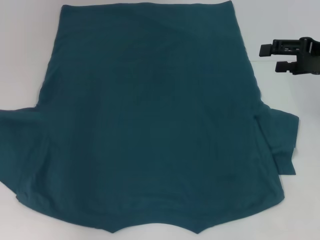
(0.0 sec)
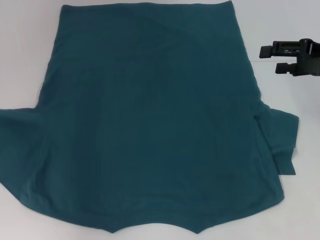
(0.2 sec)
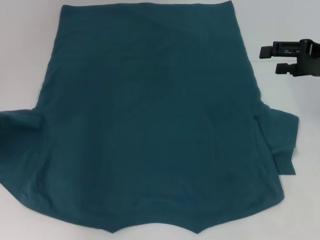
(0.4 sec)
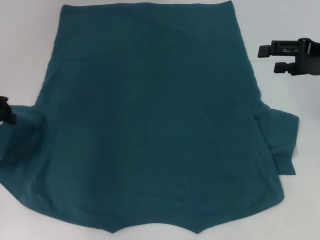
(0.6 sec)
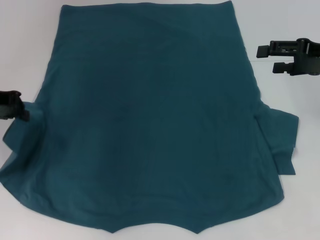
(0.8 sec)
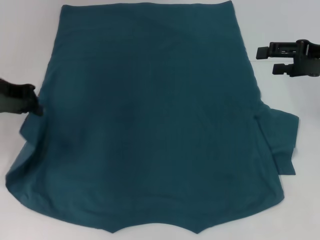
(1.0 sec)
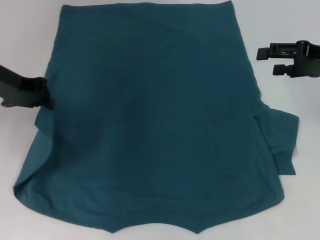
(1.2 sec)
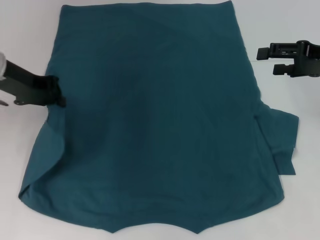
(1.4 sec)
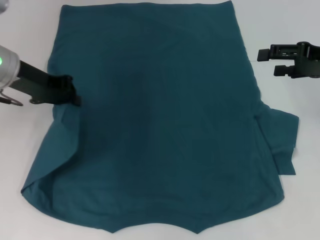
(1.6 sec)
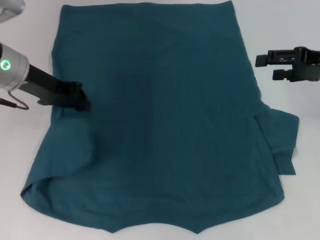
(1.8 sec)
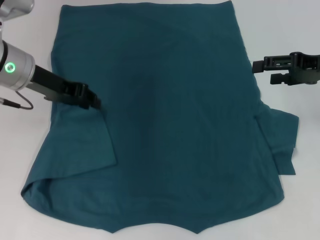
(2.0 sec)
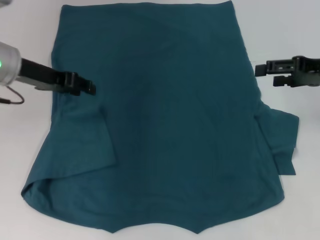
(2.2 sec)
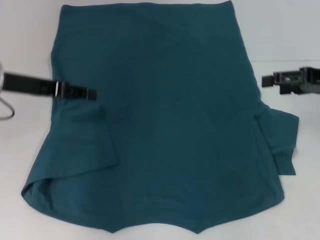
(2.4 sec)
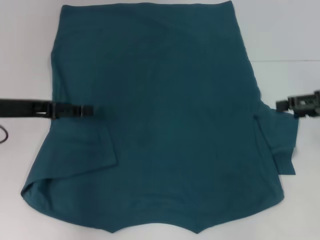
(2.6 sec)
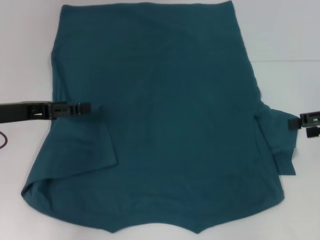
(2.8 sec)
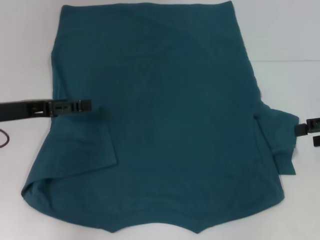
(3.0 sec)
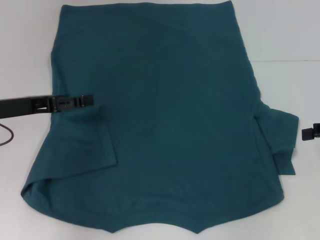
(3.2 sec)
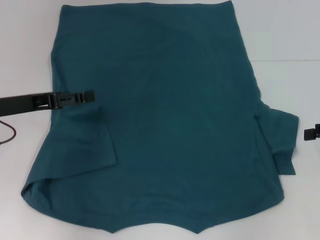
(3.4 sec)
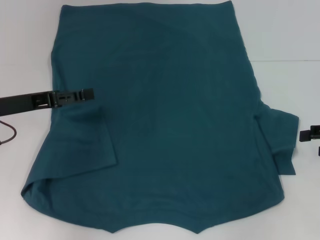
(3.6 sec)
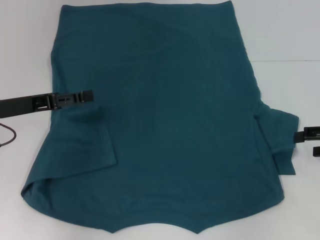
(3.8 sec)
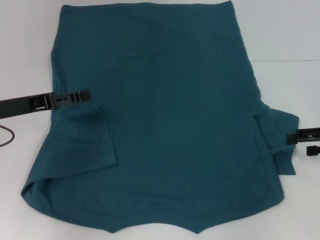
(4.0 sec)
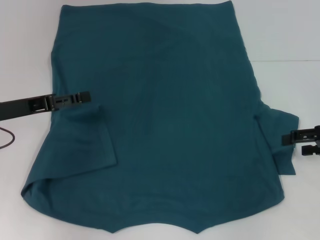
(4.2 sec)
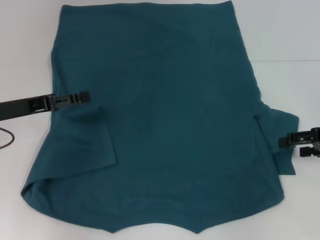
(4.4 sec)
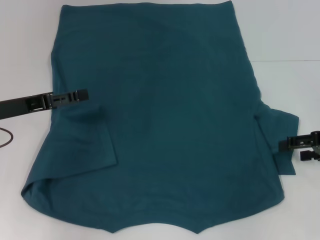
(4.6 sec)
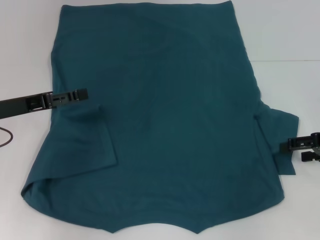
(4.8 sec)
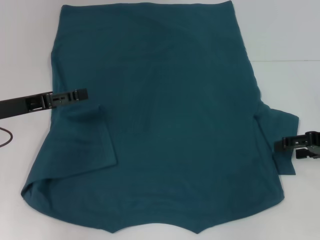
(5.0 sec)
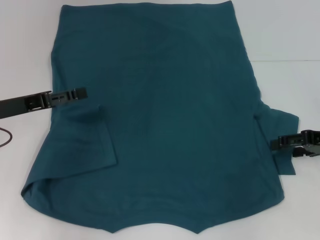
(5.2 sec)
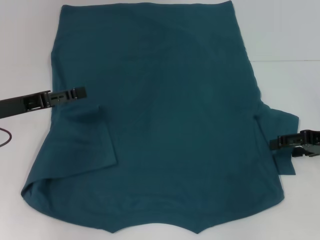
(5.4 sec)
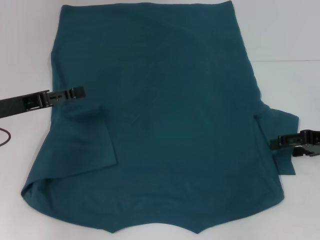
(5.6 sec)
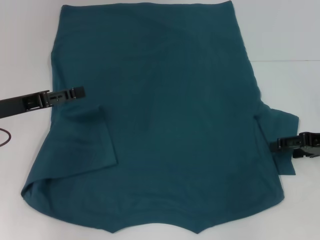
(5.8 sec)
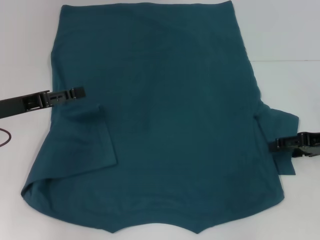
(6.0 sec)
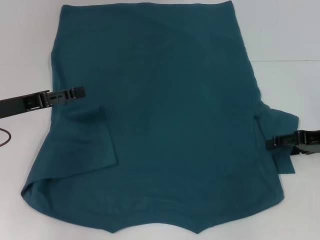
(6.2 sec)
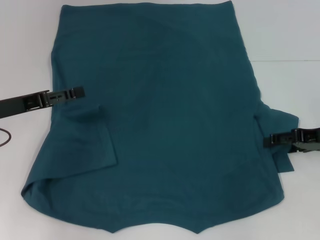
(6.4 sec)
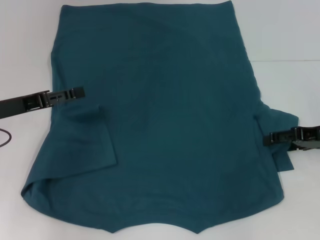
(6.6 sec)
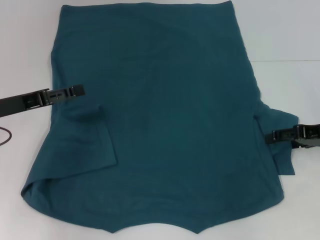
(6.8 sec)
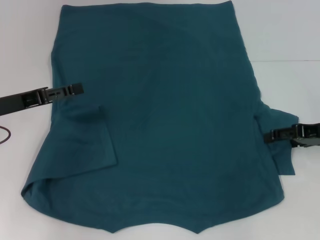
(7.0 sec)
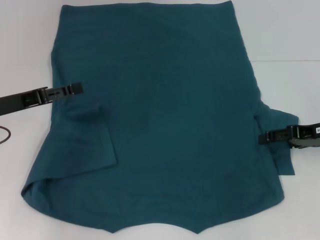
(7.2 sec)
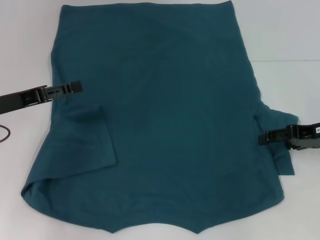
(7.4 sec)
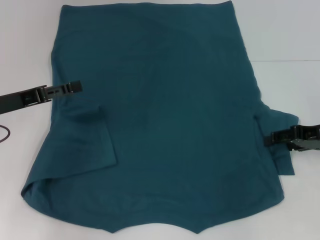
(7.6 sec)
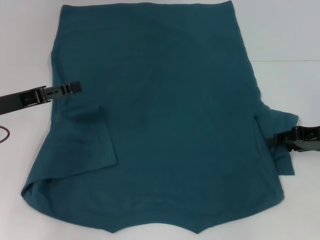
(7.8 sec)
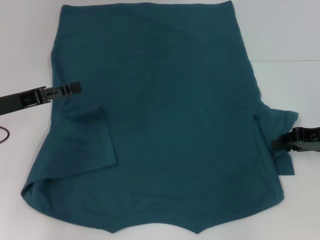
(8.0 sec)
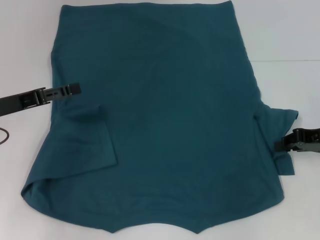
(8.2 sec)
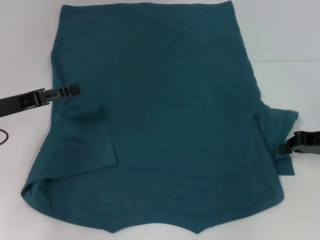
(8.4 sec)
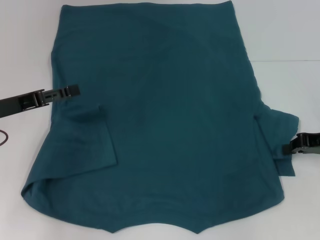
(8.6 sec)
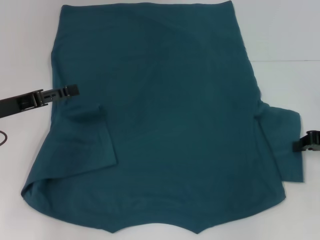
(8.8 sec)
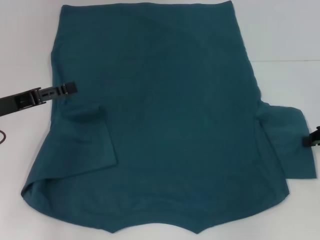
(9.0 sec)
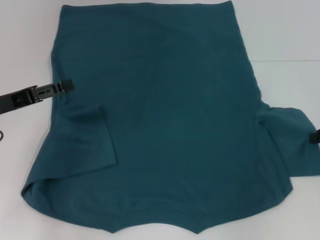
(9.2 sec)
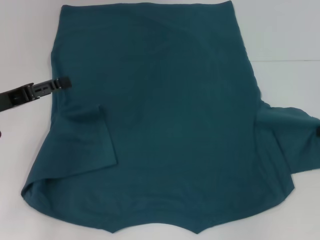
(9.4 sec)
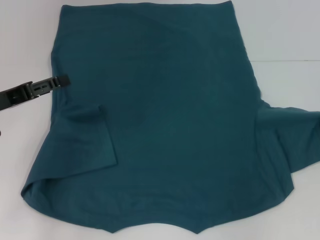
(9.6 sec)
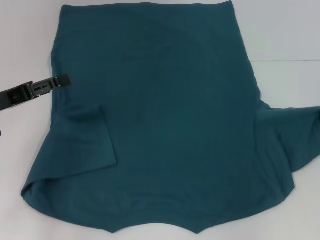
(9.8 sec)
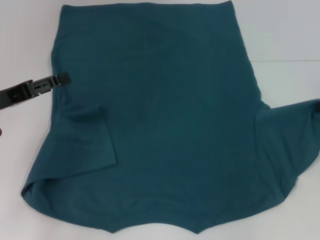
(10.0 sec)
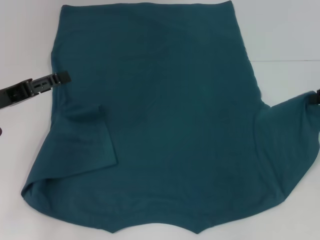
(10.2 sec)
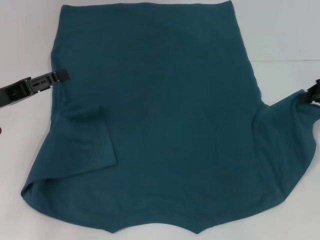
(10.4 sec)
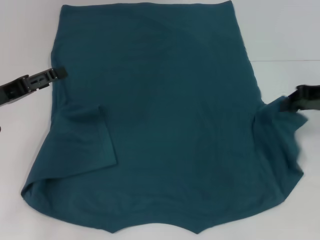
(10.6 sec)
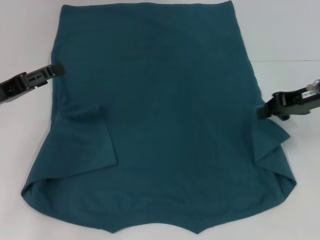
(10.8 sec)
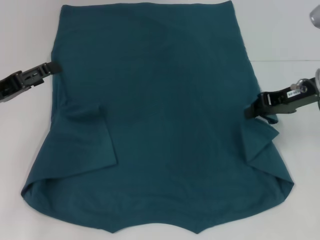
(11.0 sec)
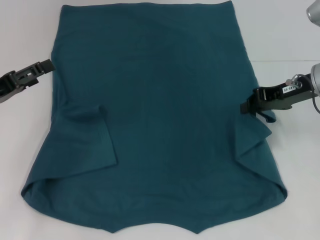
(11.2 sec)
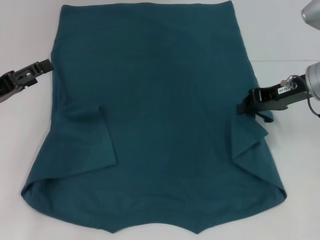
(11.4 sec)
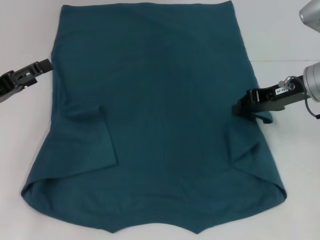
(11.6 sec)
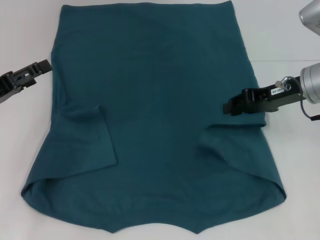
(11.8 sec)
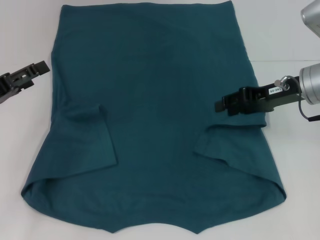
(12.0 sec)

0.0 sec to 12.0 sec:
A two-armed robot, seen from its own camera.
Step, 0.0 sec to 2.0 sec: Fold the bottom left sleeve with your left hand.
0.0 sec to 1.6 sec: The left gripper heads to the right and forward, covering roughly 15 cm.
1.6 sec to 3.0 sec: The left gripper heads backward, covering roughly 10 cm, and opens. The right gripper is displaced backward and to the right by some 10 cm.
3.0 sec to 4.4 sec: The grippers move only a little.
4.4 sec to 7.6 sec: The grippers stay close to where they were, moving slightly.
7.6 sec to 9.0 sec: The right gripper closes.
9.0 sec to 10.4 sec: The right gripper goes approximately 5 cm upward.
10.4 sec to 12.0 sec: The right gripper goes some 10 cm to the left.

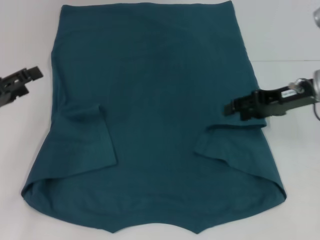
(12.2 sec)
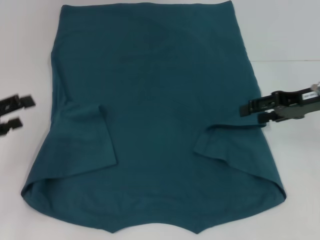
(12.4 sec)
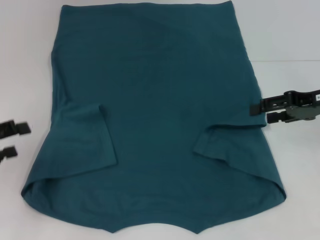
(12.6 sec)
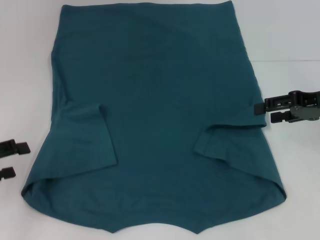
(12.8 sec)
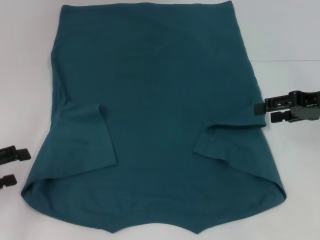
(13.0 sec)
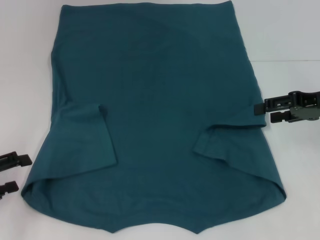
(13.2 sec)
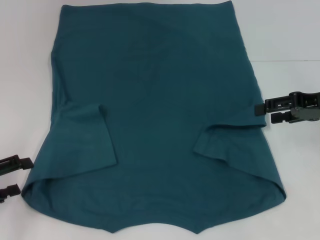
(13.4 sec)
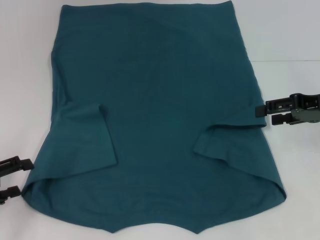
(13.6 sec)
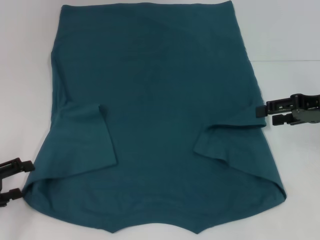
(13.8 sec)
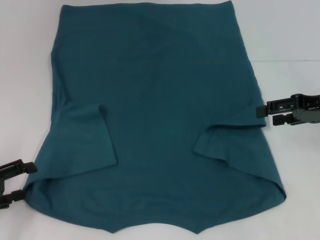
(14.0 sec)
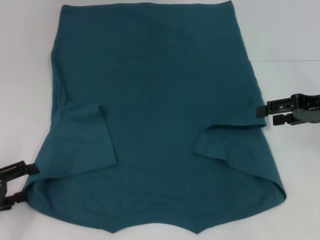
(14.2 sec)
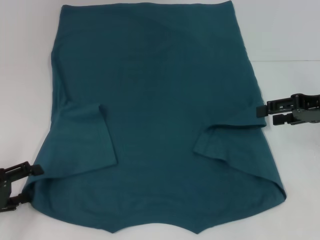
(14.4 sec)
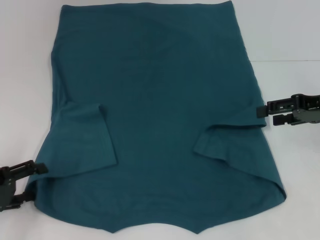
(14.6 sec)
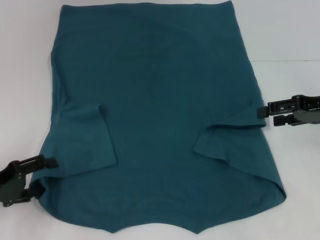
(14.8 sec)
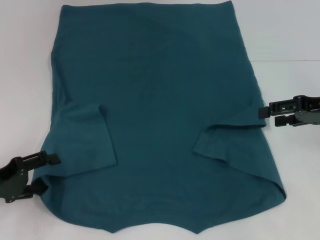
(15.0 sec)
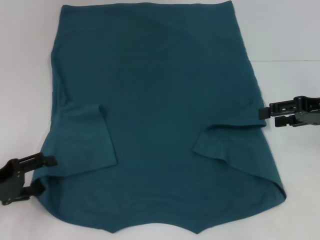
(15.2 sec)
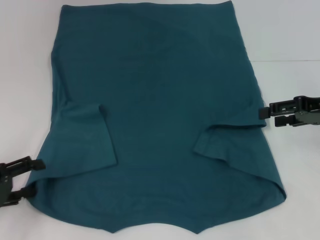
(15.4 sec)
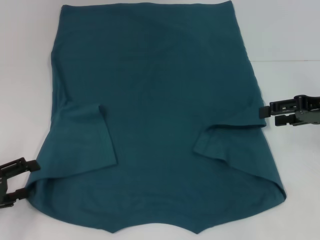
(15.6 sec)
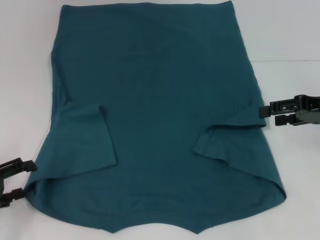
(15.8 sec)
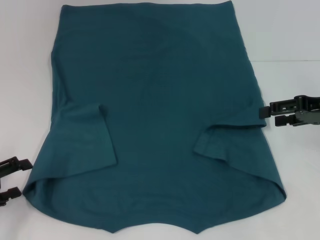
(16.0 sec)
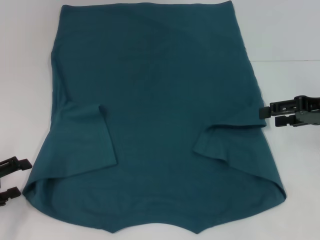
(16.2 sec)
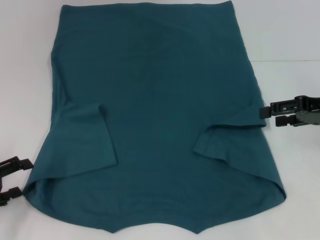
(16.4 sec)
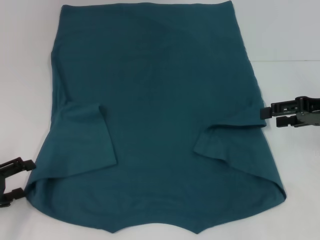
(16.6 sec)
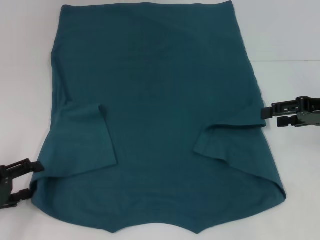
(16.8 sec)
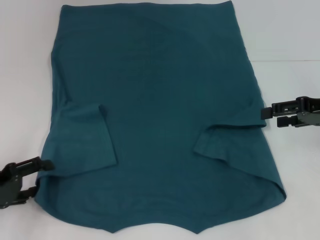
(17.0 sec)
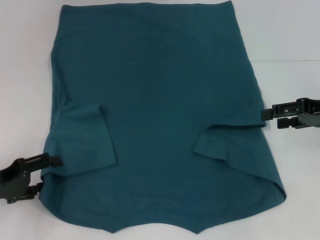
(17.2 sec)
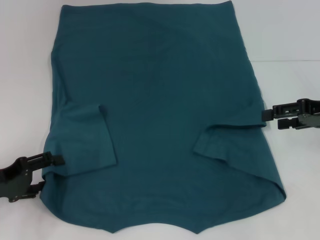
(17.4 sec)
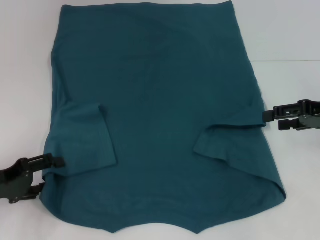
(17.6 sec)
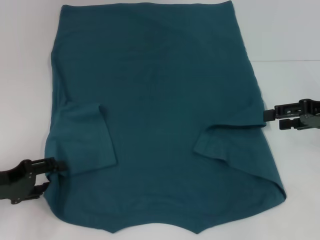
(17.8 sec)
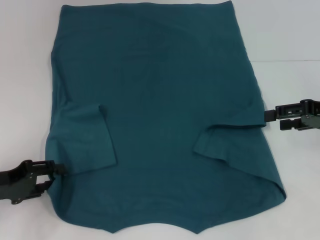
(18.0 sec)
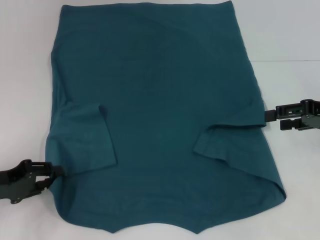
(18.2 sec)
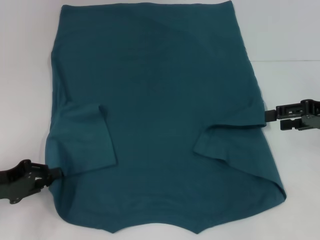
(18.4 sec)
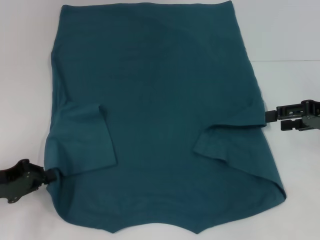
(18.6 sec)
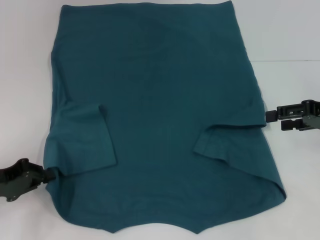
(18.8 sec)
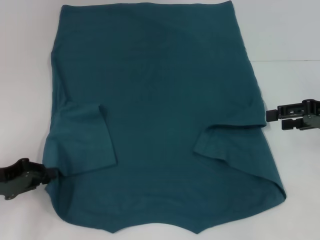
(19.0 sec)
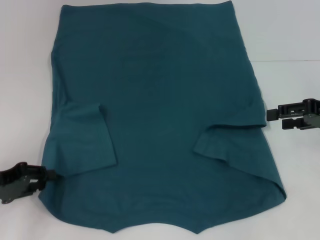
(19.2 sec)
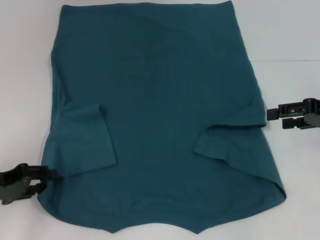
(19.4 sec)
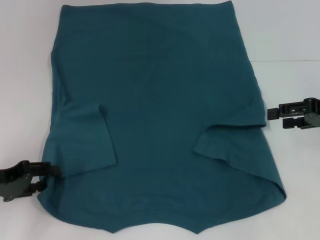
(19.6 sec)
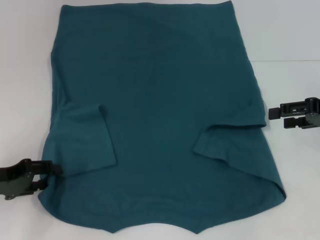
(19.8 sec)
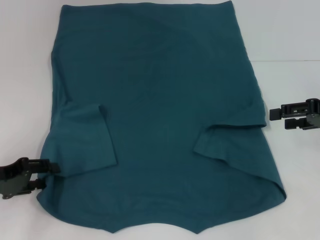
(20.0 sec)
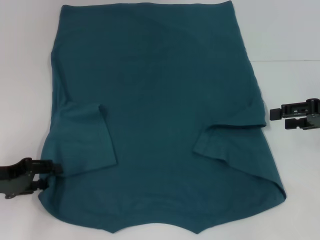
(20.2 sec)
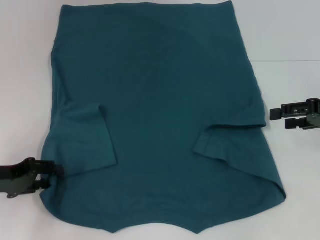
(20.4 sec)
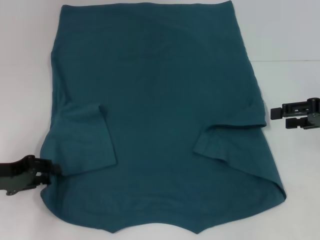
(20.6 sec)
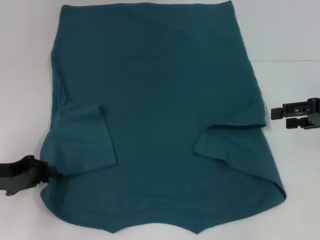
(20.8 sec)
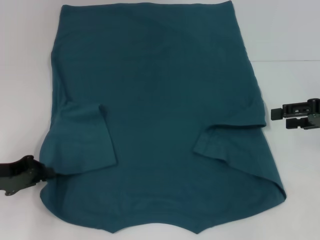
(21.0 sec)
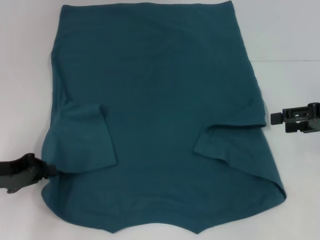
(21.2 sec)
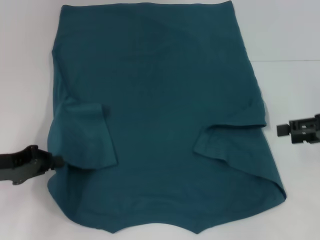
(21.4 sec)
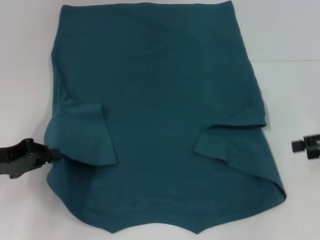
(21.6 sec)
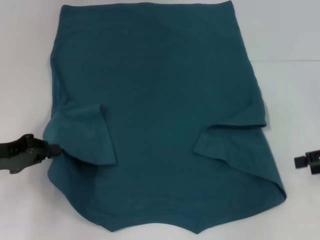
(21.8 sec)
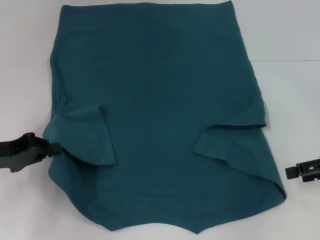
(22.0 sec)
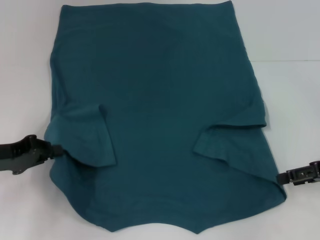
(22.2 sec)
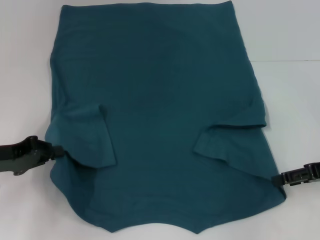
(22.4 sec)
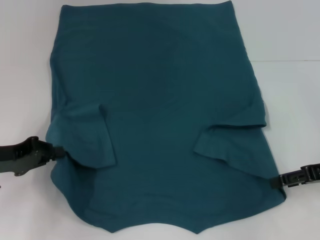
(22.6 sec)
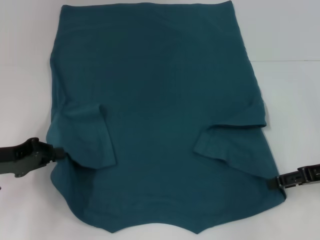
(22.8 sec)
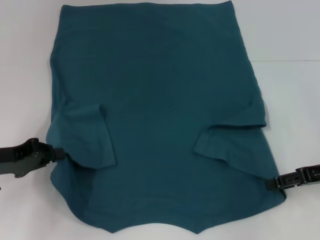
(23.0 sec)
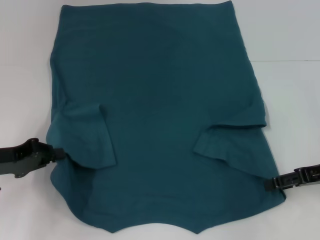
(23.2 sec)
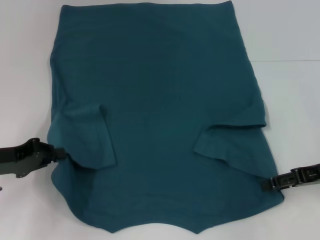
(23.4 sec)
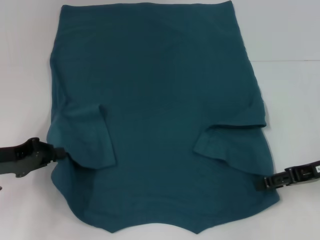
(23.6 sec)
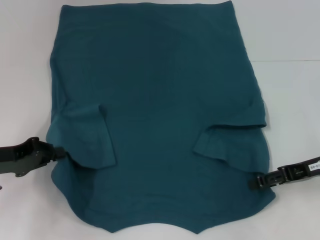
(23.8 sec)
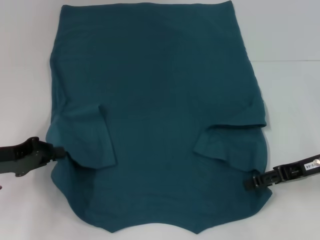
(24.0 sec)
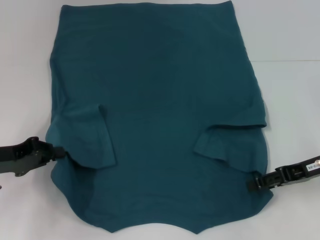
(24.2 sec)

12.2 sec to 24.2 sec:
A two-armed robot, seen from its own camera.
Step, 12.4 sec to 18.8 sec: Grab the bottom left corner with your left hand.
12.2 sec to 13.8 sec: The right gripper shifts some 5 cm to the right; the left gripper is displaced backward and downward by about 10 cm.
13.8 sec to 16.6 sec: The grippers stay close to where they were, moving slightly.
16.6 sec to 18.2 sec: The left gripper closes up.
18.2 sec to 19.8 sec: The left gripper closes and opens again.
19.8 sec to 21.2 sec: The left gripper closes its fingers.
21.2 sec to 22.6 sec: The right gripper ends up roughly 5 cm from where it was.
22.6 sec to 24.2 sec: The grippers stay close to where they were, moving slightly.
